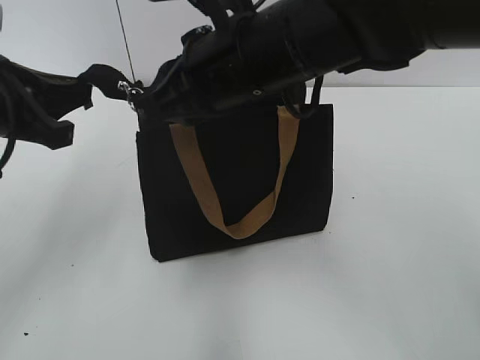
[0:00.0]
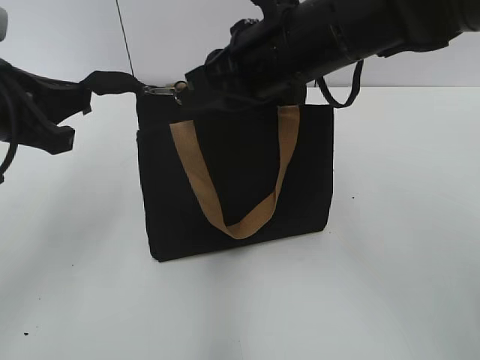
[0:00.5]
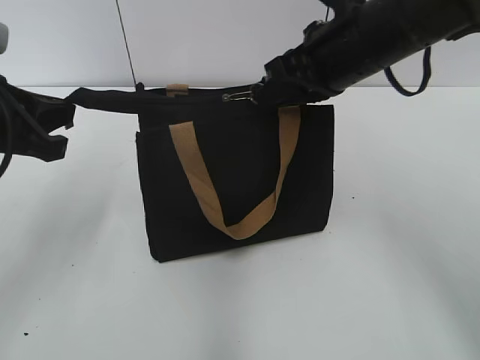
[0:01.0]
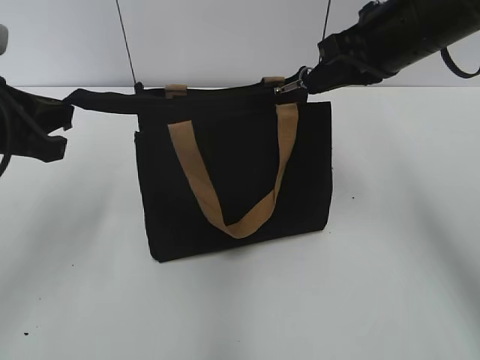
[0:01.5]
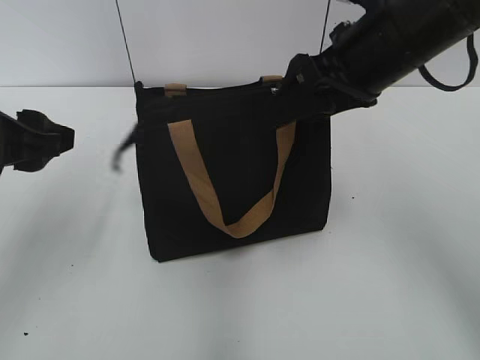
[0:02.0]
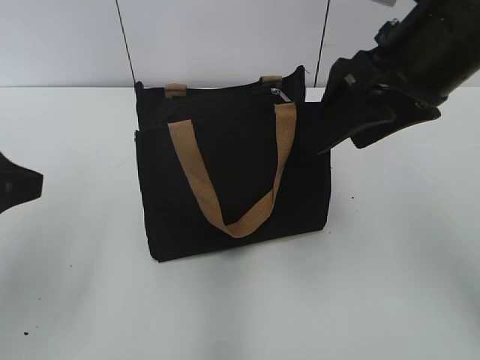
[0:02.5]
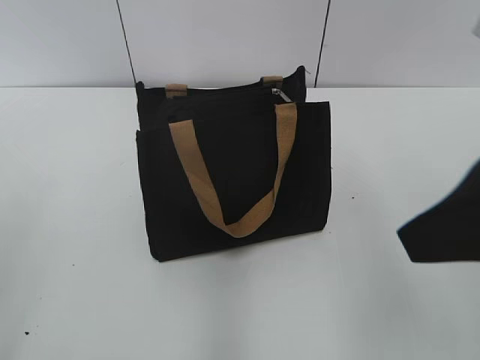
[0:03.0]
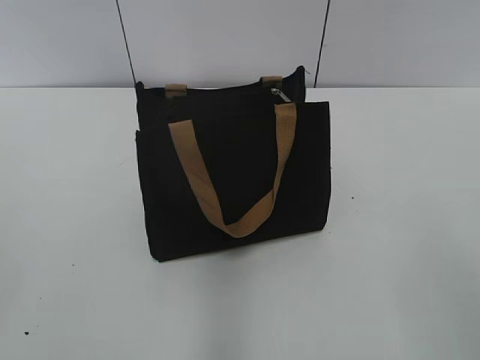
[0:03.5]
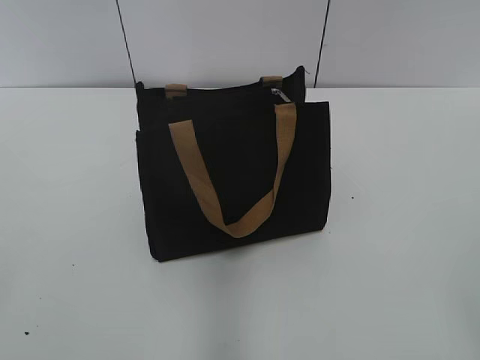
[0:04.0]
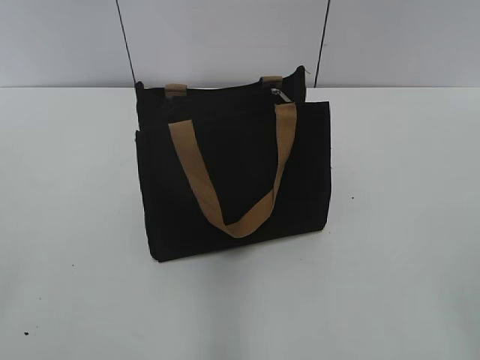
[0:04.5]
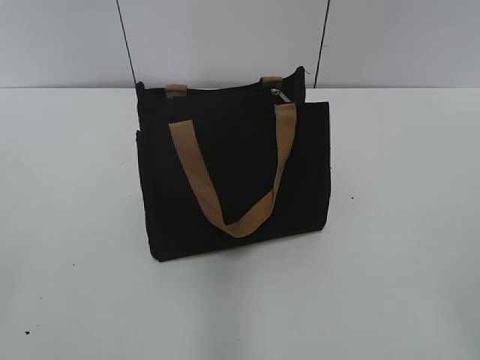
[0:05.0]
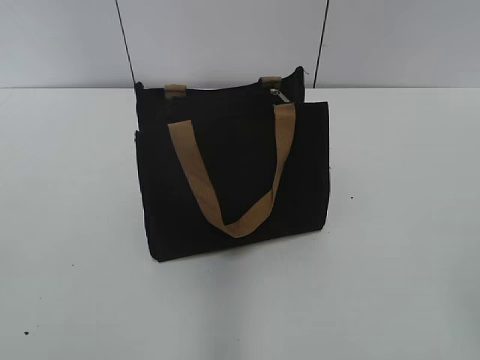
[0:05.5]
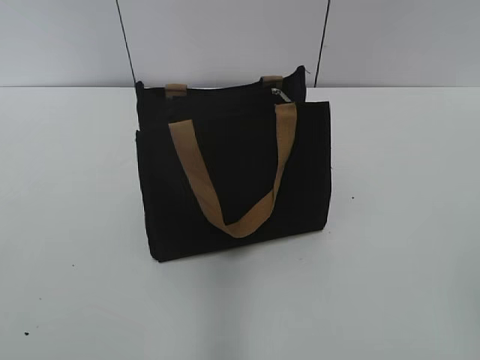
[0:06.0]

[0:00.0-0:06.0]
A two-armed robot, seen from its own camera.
0:00.0 to 0:02.0: The right gripper travels to the right by some 10 cm, and opens, while the left gripper opens.
0:02.0 to 0:04.0: The right gripper goes approximately 35 cm backward and to the right. Meanwhile the left gripper heads backward and to the left, covering roughly 25 cm.

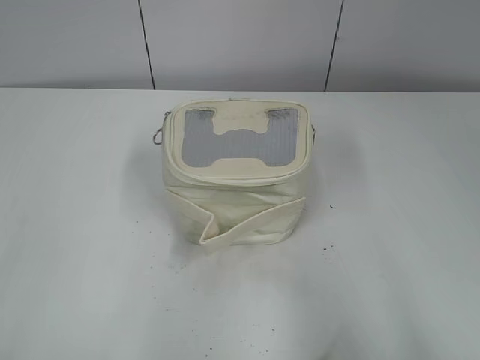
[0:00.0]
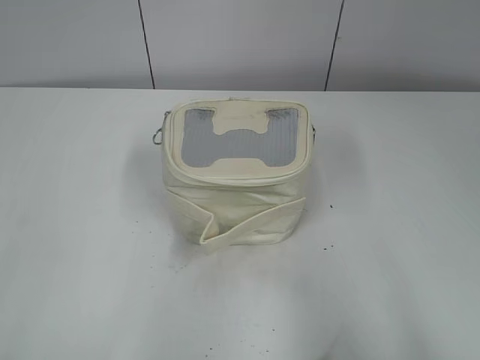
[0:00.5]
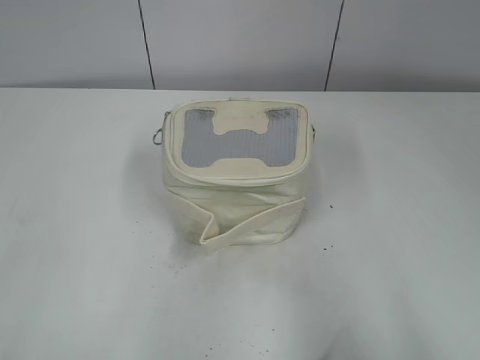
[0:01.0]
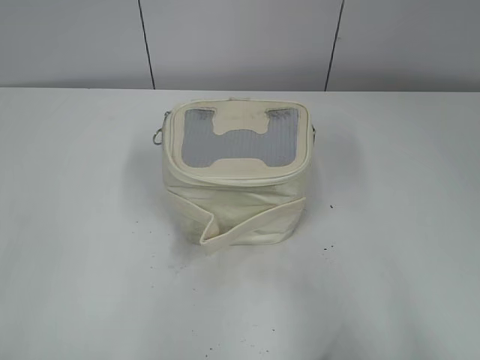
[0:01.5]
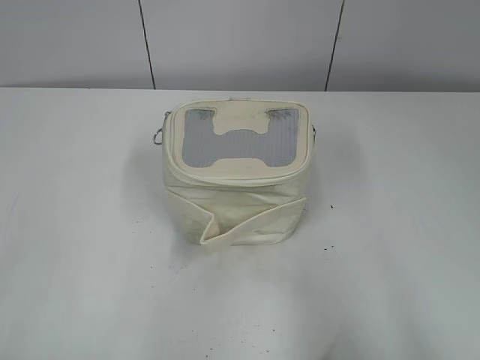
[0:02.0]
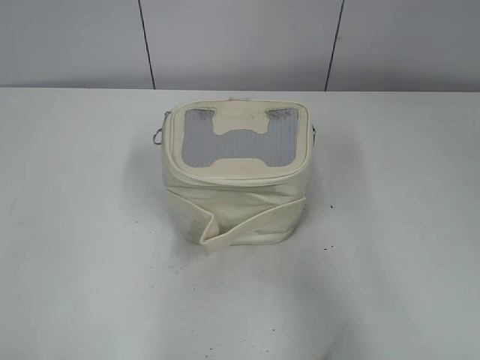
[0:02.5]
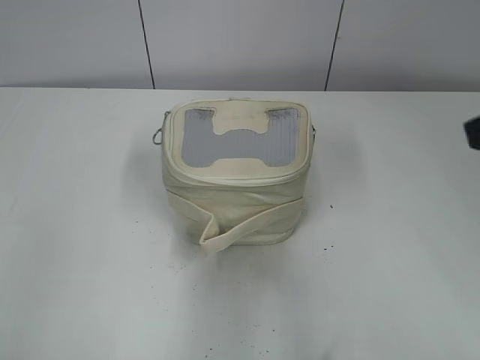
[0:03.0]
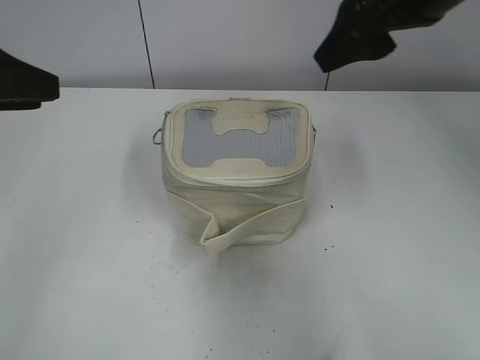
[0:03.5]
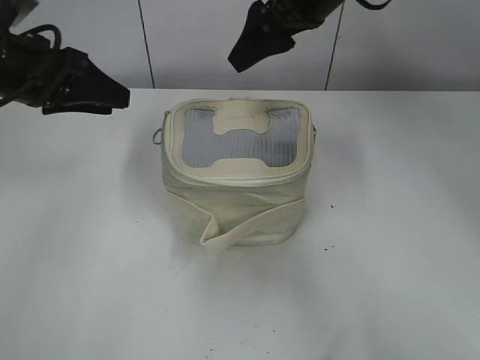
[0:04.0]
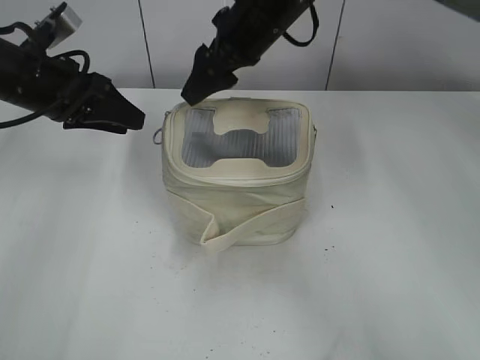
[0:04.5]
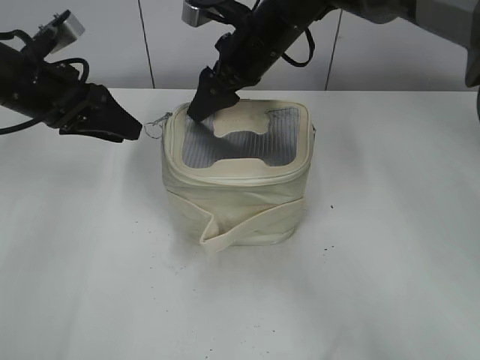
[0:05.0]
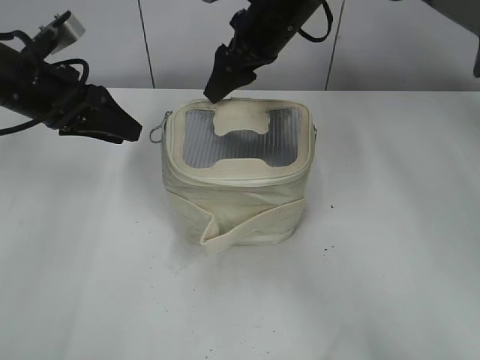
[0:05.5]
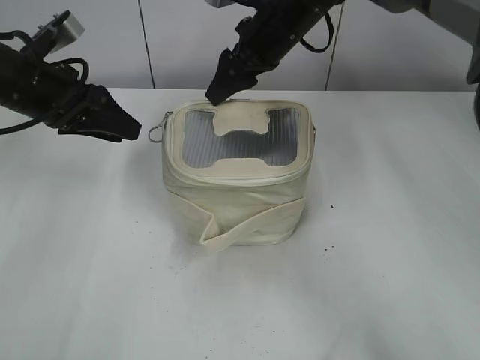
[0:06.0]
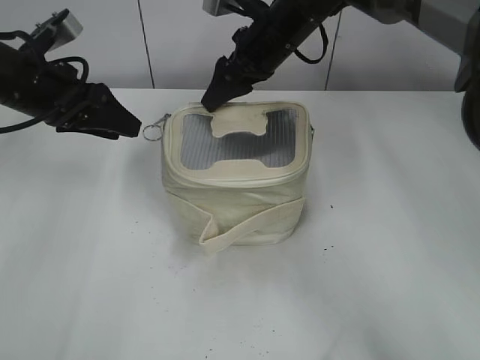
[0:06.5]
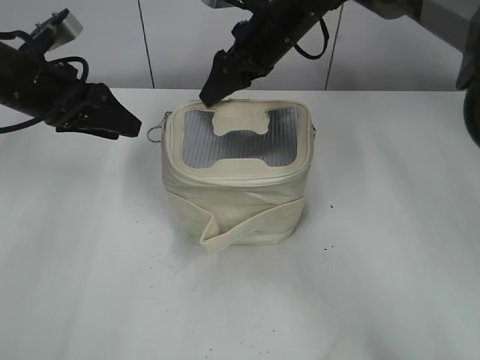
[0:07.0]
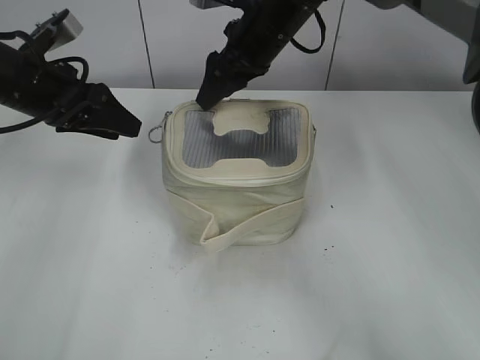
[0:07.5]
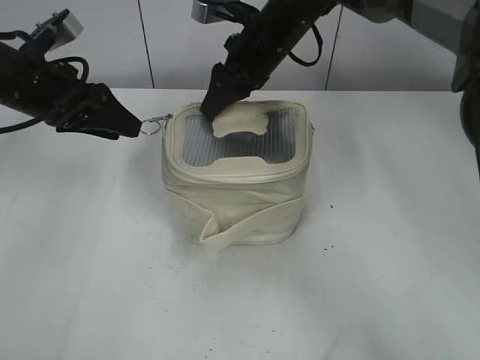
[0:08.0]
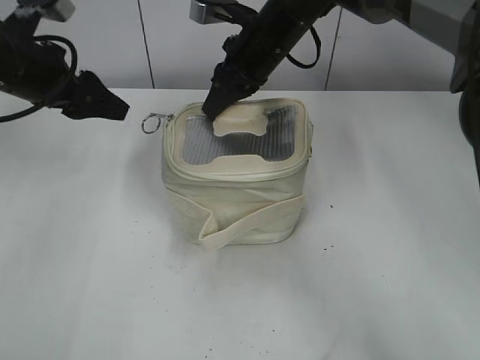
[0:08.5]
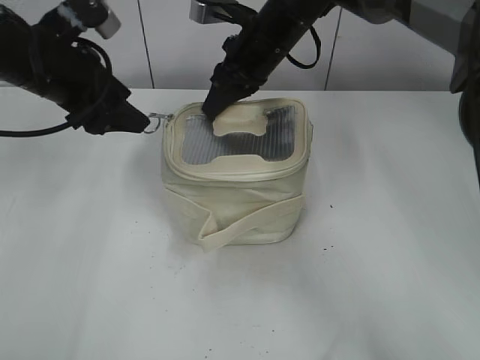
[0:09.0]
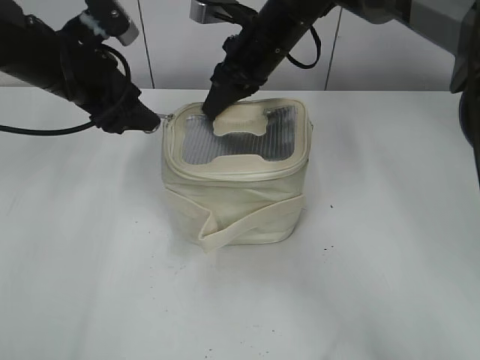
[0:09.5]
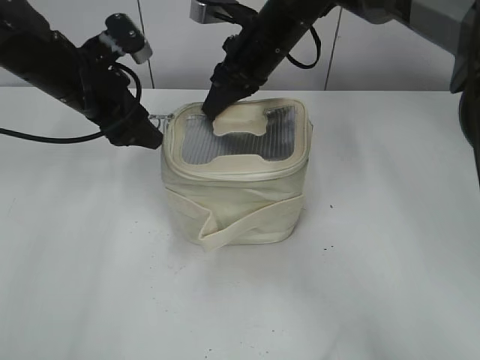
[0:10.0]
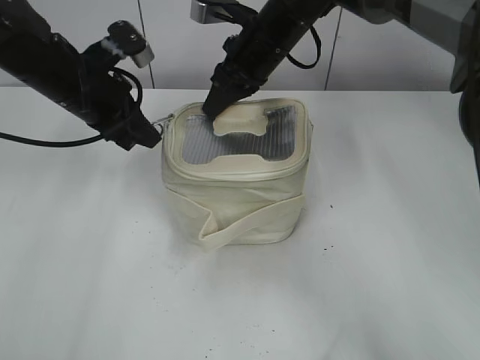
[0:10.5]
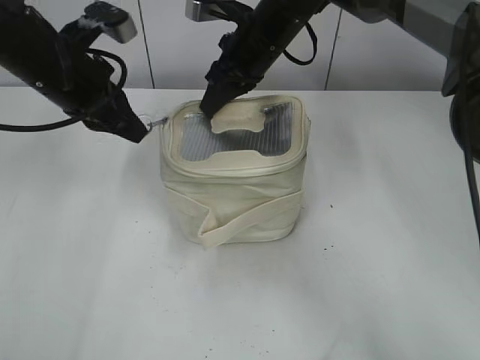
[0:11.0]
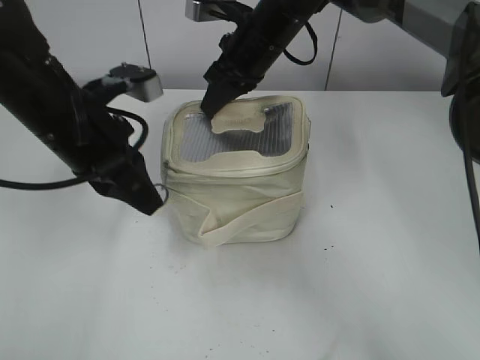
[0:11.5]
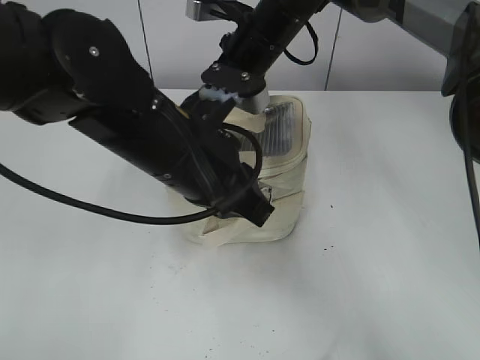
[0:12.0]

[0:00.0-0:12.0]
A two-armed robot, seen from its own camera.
0:02.0 to 0:04.0: The right gripper travels forward and to the left by roughly 50 cm. The left gripper heads forward, covering approximately 35 cm.
0:04.0 to 0:06.0: The right gripper travels downward and forward by approximately 10 cm.
0:06.0 to 0:08.0: The grippers stay close to where they were, moving slightly.
0:08.0 to 0:10.0: The left gripper ends up about 5 cm from where it was, while the right gripper closes up.
0:10.0 to 0:12.0: The left gripper goes approximately 20 cm backward and to the right, and closes up.

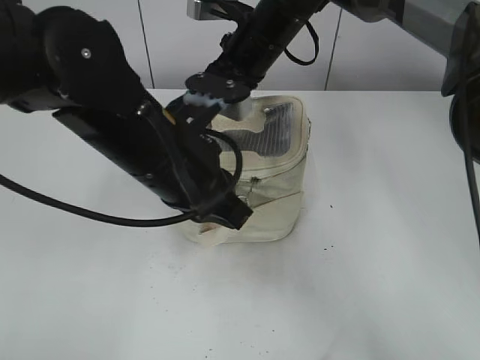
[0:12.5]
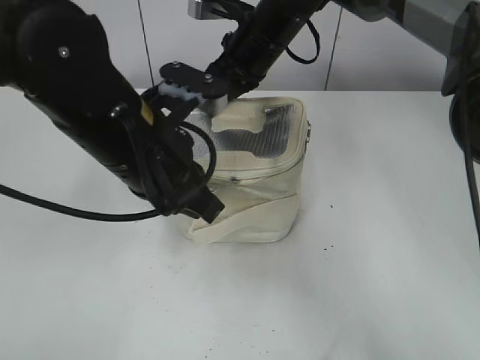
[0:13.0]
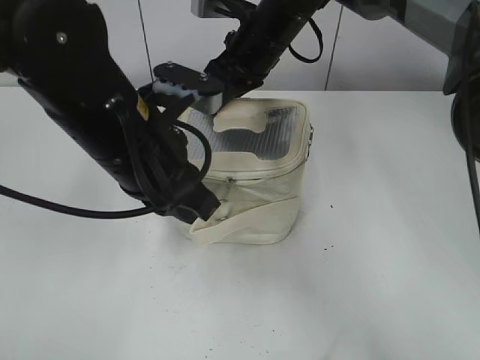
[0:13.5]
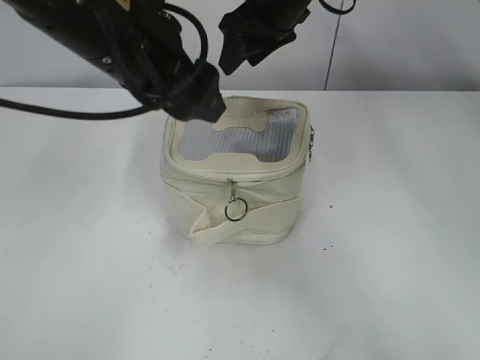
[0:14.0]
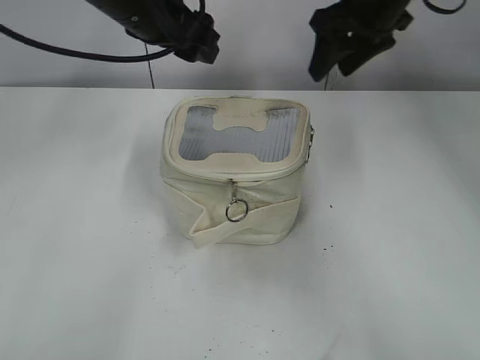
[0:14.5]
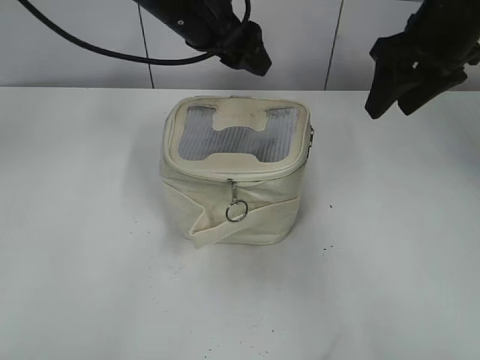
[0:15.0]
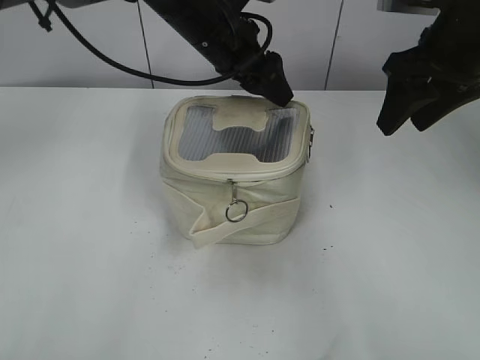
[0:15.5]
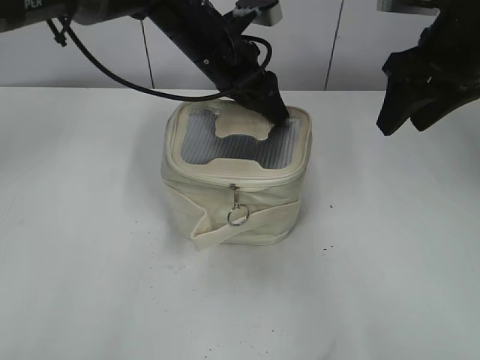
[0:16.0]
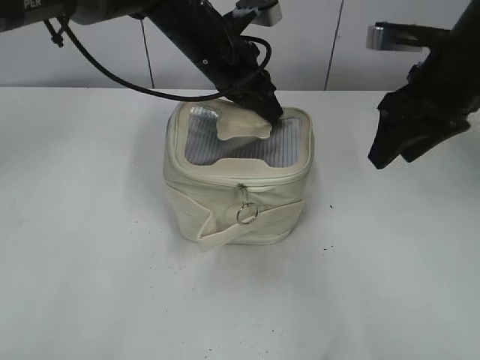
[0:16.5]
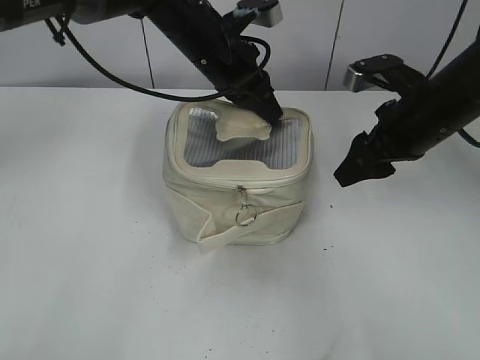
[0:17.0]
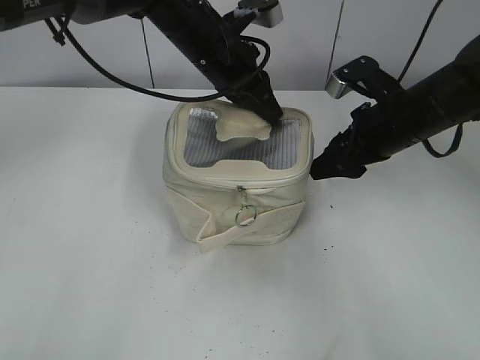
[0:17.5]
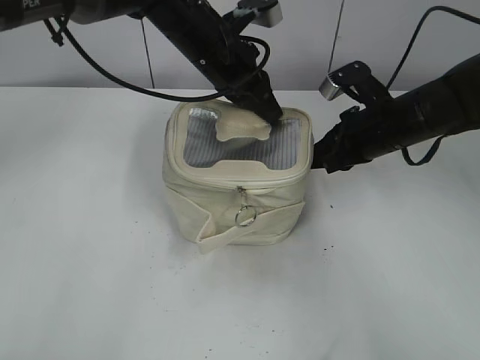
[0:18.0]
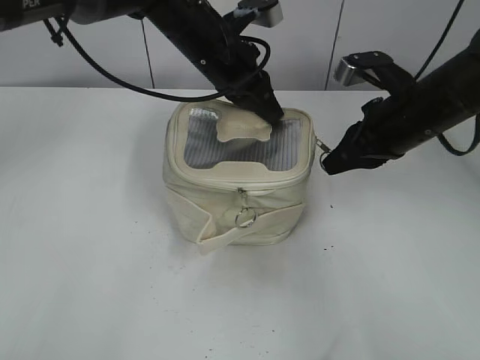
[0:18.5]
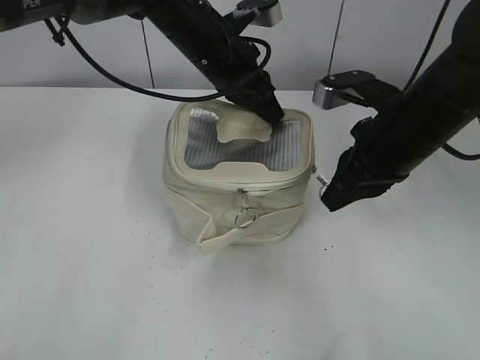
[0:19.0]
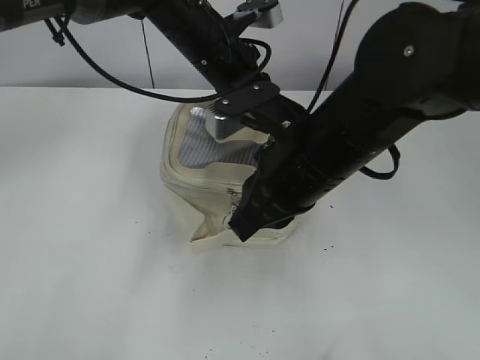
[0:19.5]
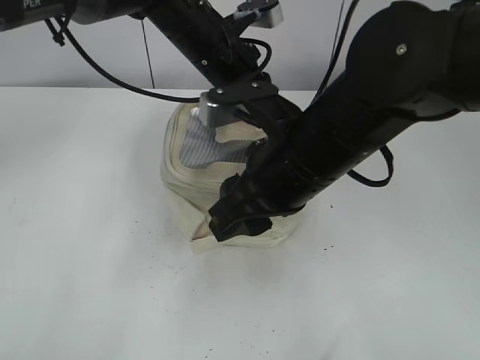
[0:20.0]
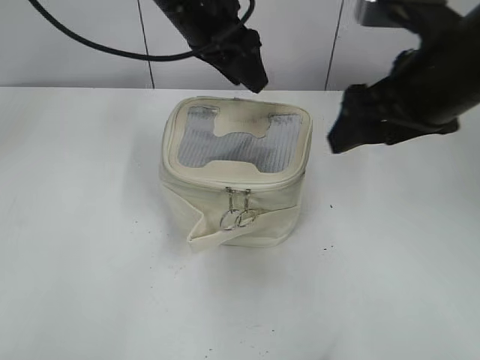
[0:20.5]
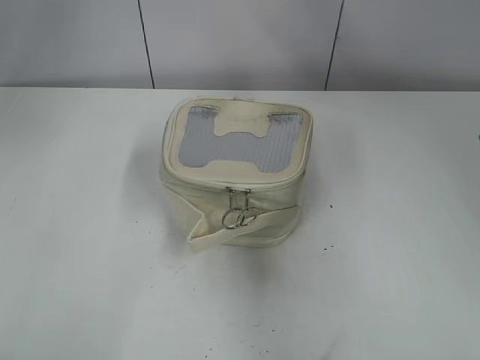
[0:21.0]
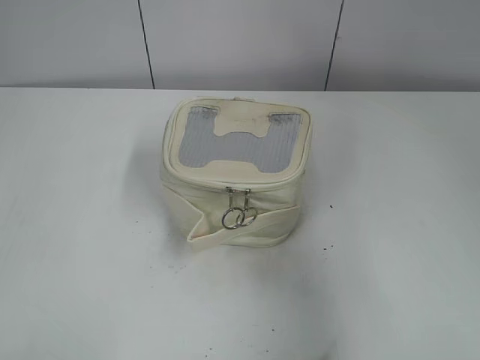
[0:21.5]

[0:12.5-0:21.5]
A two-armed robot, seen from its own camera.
Step, 0:14.0 to 0:20.0: Zip up the bag with your right hand.
0:12.5 to 0:14.5: The right gripper is displaced to the right and upward by roughly 15 cm, and opens its fingers, while the left gripper goes some 15 cm forward and upward, and opens.
0:14.5 to 0:17.0: The left gripper goes roughly 10 cm to the right and downward, and closes its fingers. Meanwhile the right gripper moves downward, backward and to the right, some 15 cm.
0:17.0 to 0:19.5: The right gripper heads to the left and backward, covering roughly 15 cm, and closes up.
0:19.5 to 0:21.5: The right gripper is displaced to the right, backward and upward by about 30 cm, and opens. Meanwhile the left gripper is displaced upward, backward and to the left by roughly 35 cm, and opens its fingers.
